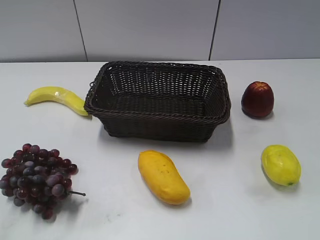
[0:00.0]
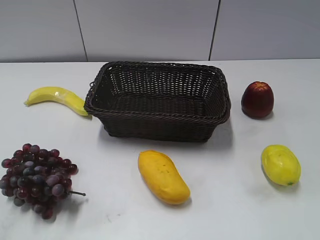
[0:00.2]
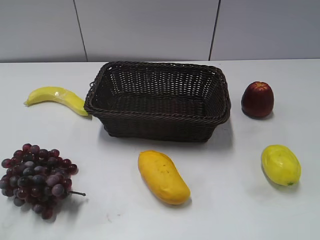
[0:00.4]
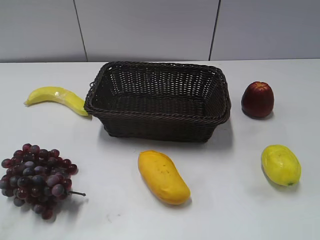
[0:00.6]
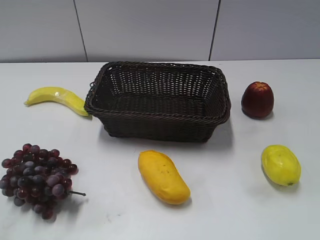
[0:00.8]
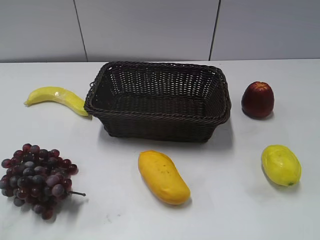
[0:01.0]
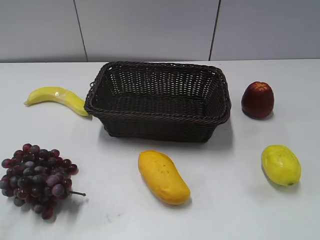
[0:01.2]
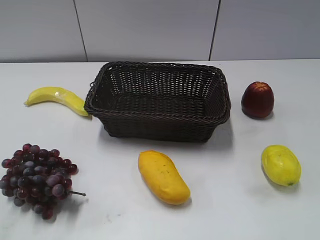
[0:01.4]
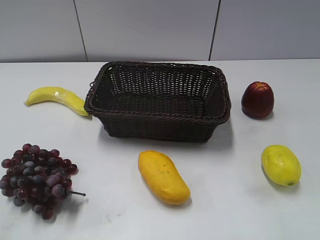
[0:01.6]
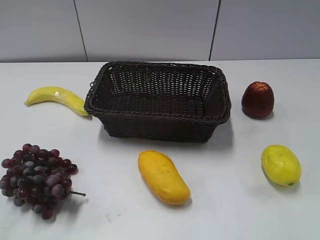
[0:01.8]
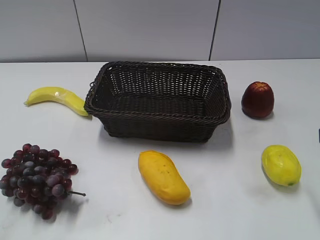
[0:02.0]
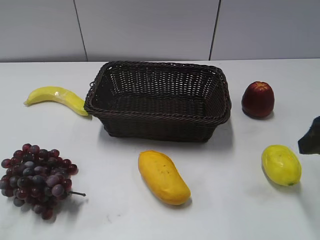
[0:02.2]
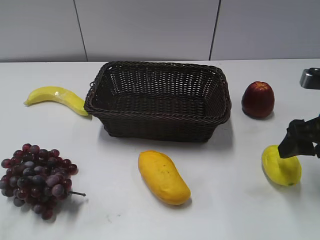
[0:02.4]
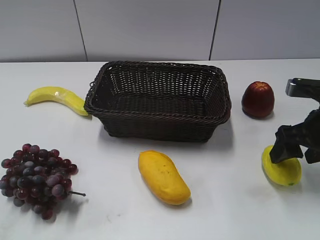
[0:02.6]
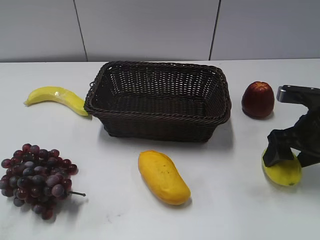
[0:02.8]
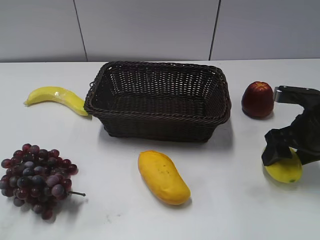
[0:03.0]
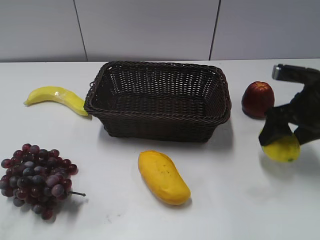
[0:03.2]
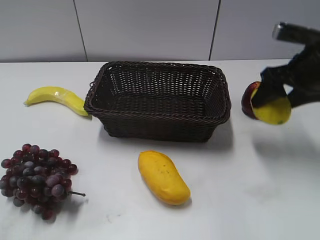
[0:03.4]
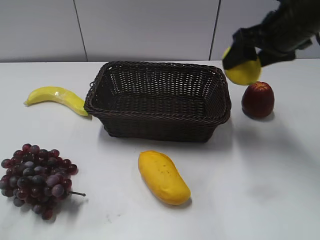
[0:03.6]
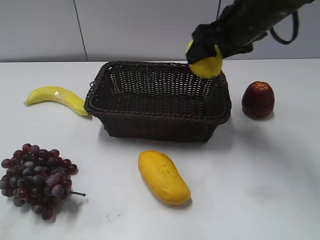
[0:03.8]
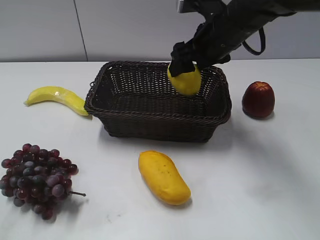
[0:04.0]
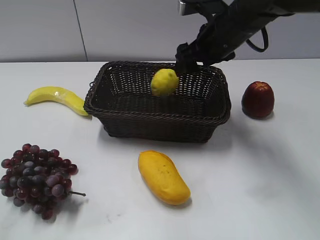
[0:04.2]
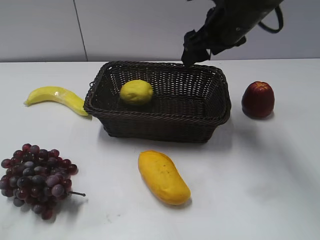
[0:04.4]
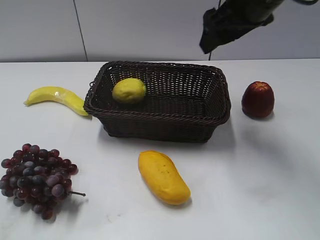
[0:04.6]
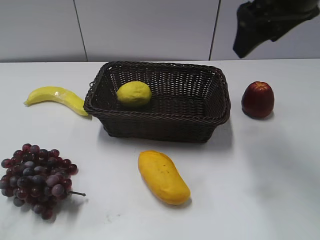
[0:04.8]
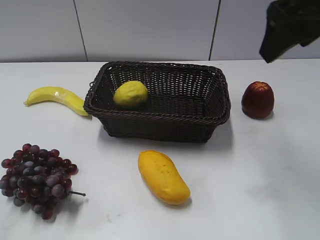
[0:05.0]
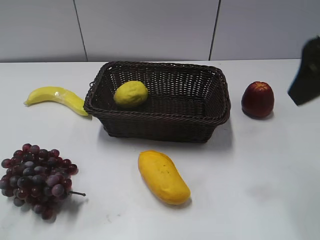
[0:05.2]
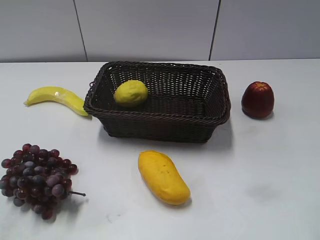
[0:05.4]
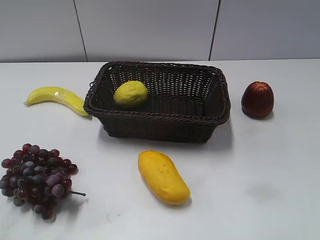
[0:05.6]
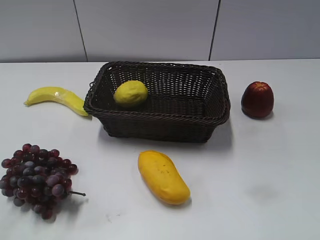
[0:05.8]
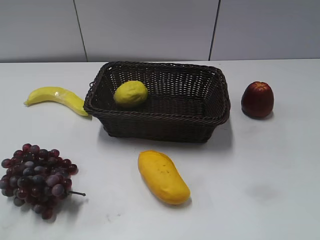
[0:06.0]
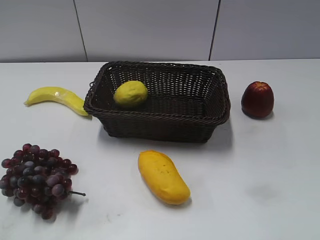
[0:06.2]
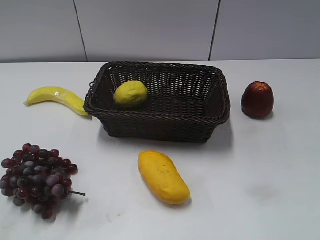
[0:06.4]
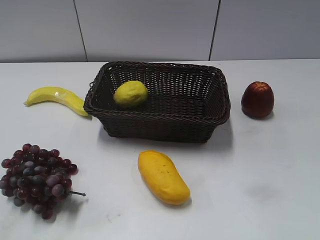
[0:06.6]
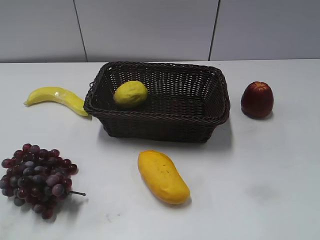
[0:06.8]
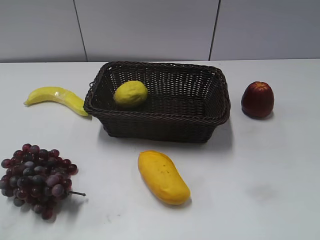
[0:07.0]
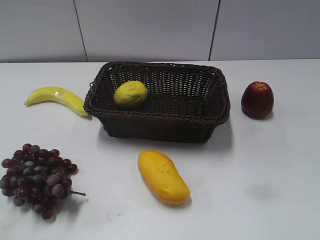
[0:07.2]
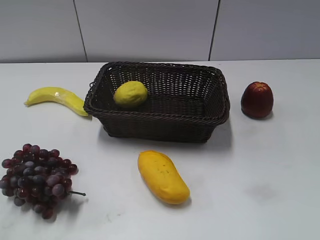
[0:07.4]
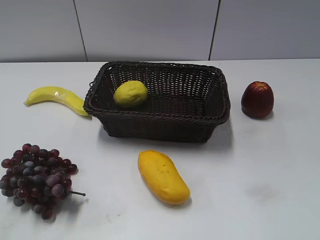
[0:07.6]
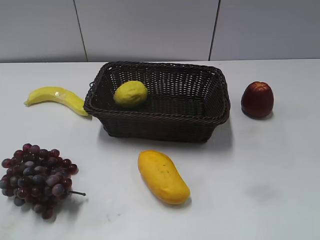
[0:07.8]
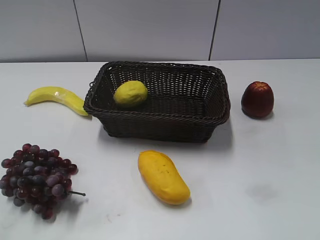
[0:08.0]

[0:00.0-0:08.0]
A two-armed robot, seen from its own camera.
Step, 0:02.0 to 0:03.0: Grasp the lemon with right gripper.
Step, 0:03.2 to 0:04.4: Place the lemon in the basket with right gripper.
0:01.6 to 0:03.2: The right gripper heads forward and downward, covering some 30 cm.
0:03.2 to 0:04.8: The right gripper swings up and down, roughly 20 cm each way, with 2 reversals.
0:04.8 to 0:06.4: The right gripper is displaced backward and to the right by approximately 30 cm.
